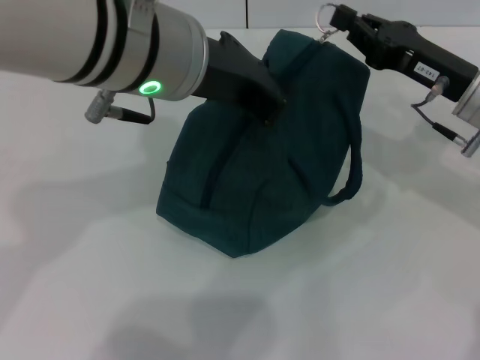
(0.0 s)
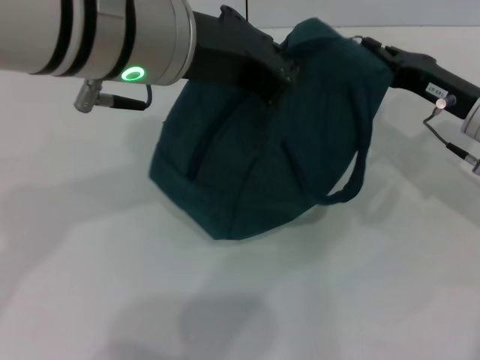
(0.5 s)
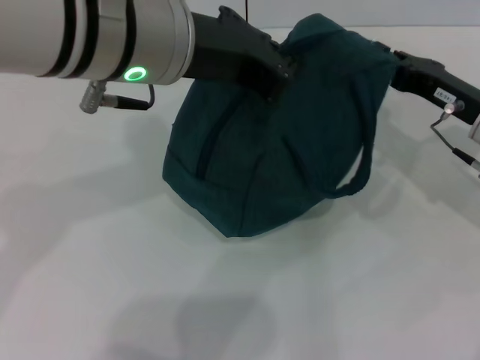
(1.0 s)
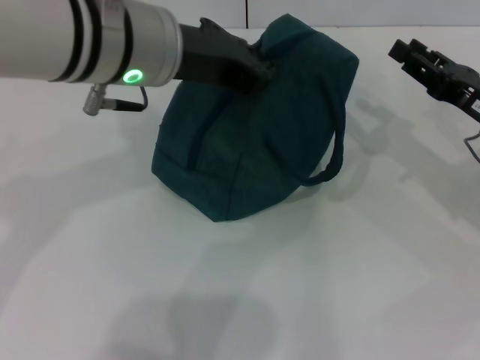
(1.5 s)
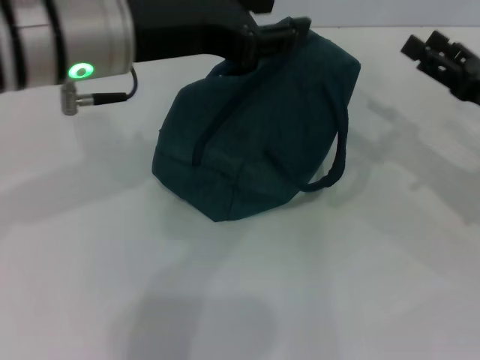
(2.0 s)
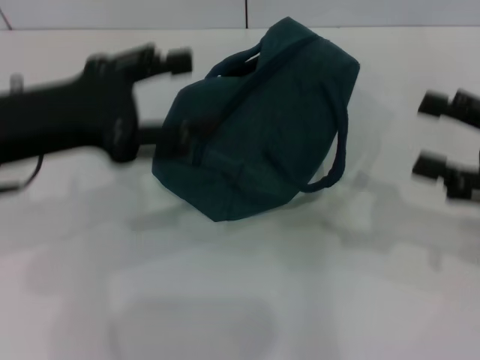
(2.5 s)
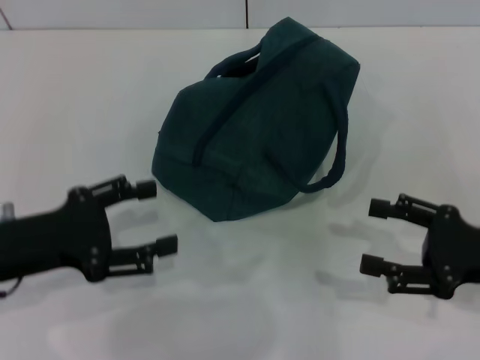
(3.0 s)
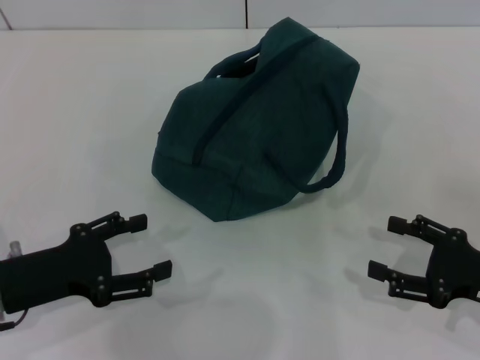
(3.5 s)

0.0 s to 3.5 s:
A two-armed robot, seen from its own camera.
0.0 to 2.0 s: The left gripper shifts about 5 cm to the left, and opens up. The right gripper travels to the right by about 5 cm, and opens its fingers.
2.0 to 3.5 s: The left gripper shifts some 25 cm downward, to the left and backward, and opens; the right gripper travels backward and downward by some 10 cm.

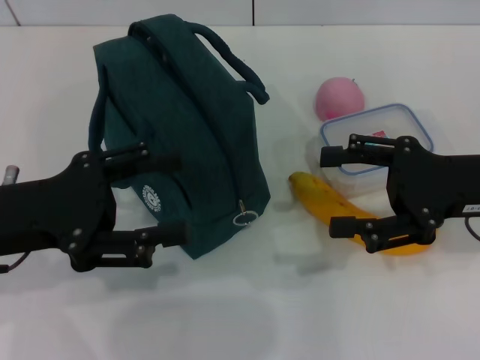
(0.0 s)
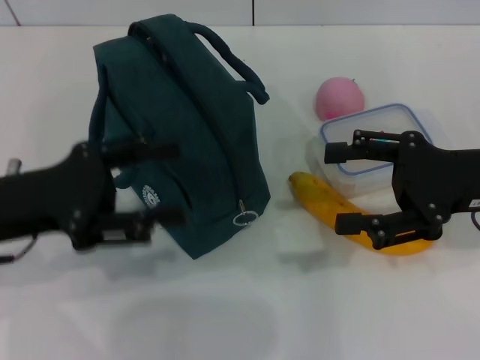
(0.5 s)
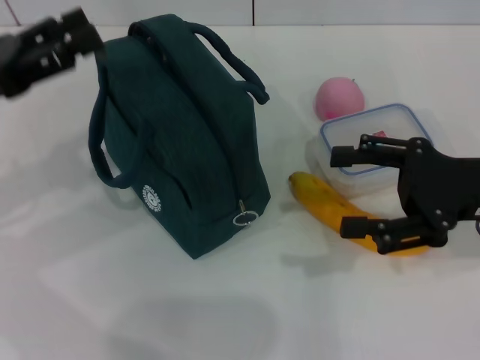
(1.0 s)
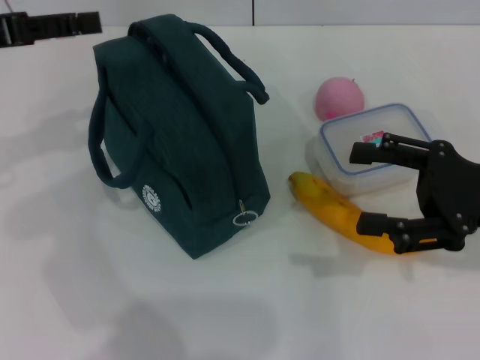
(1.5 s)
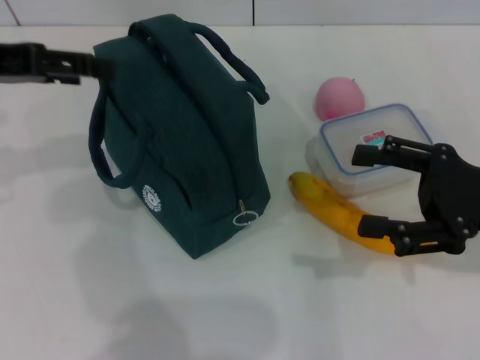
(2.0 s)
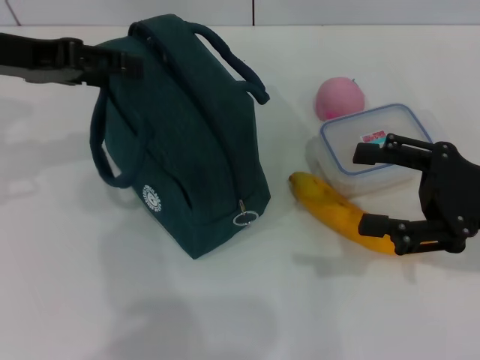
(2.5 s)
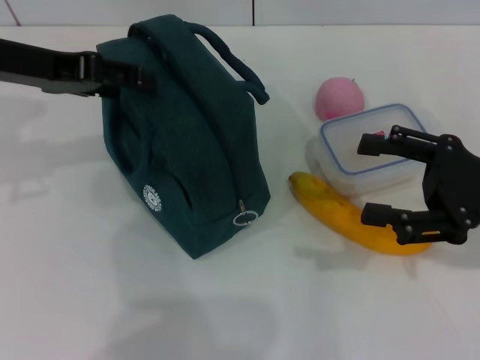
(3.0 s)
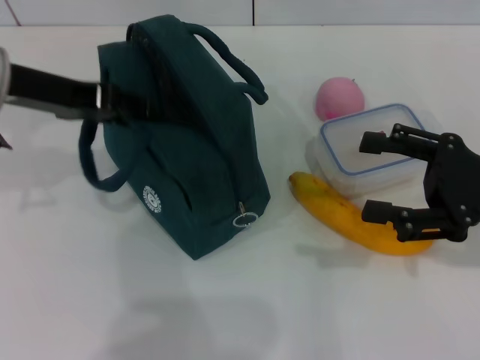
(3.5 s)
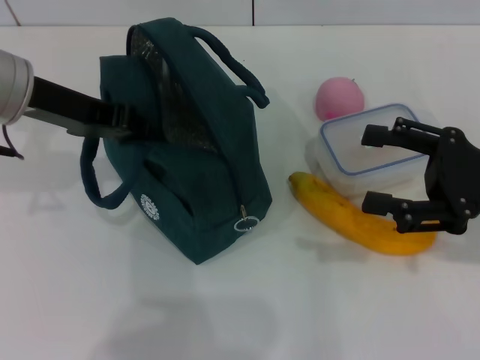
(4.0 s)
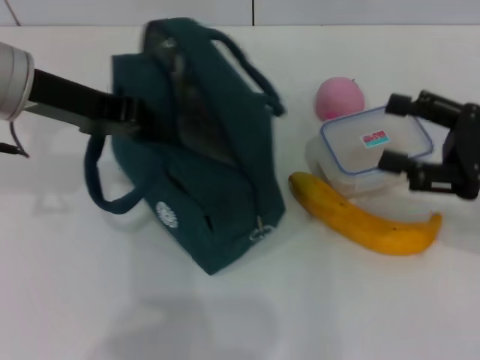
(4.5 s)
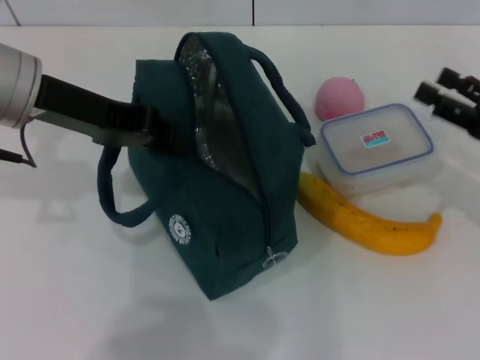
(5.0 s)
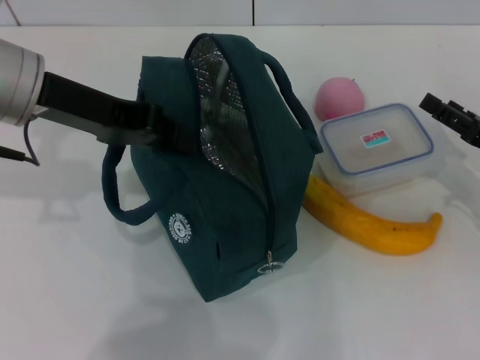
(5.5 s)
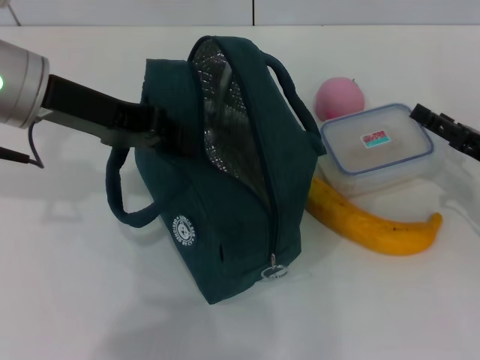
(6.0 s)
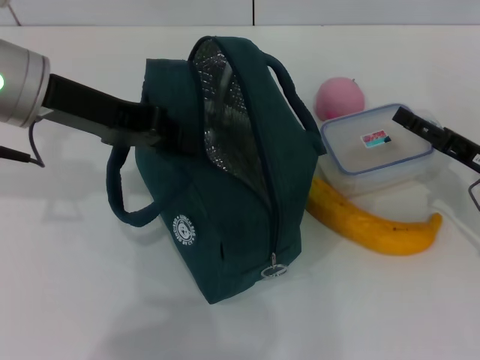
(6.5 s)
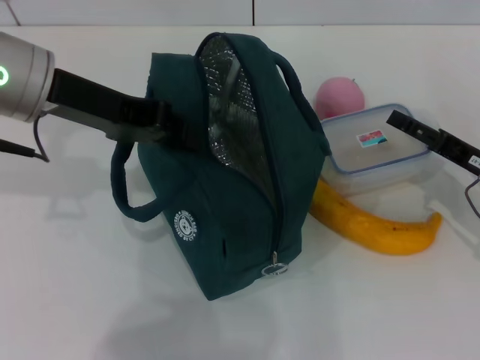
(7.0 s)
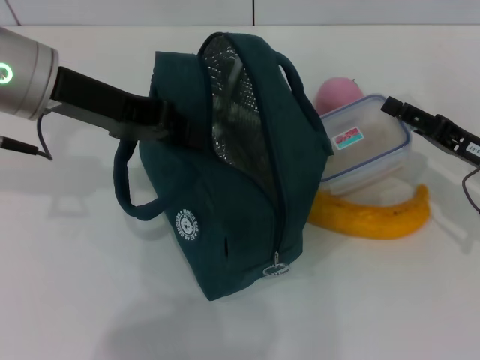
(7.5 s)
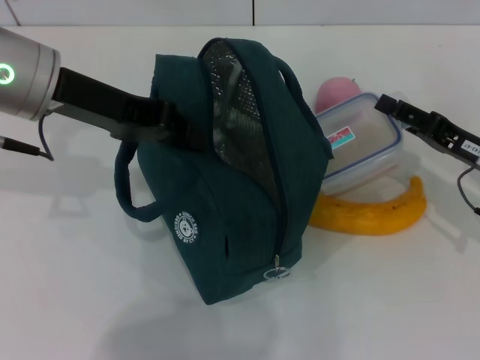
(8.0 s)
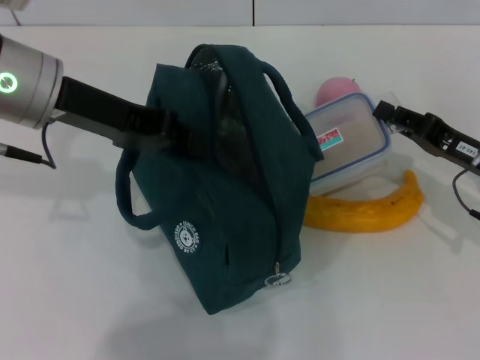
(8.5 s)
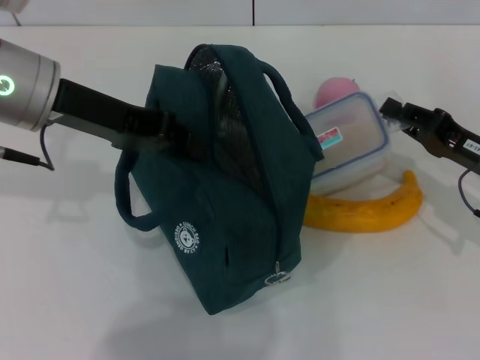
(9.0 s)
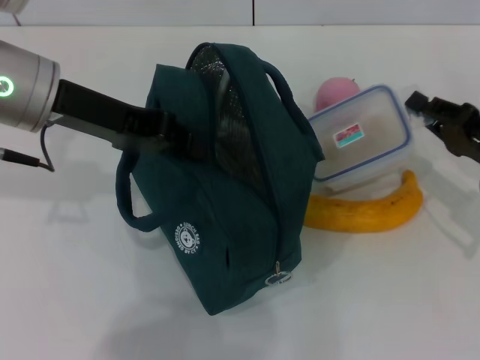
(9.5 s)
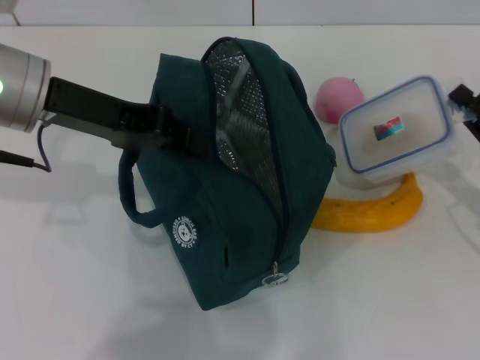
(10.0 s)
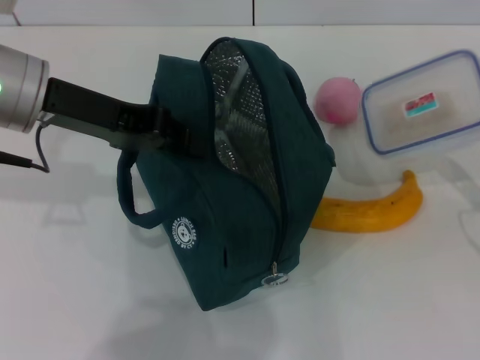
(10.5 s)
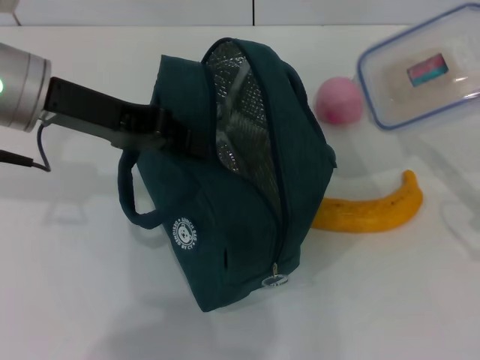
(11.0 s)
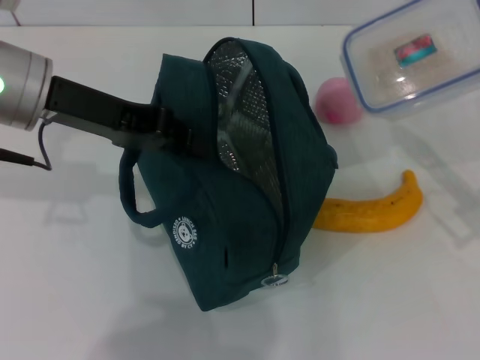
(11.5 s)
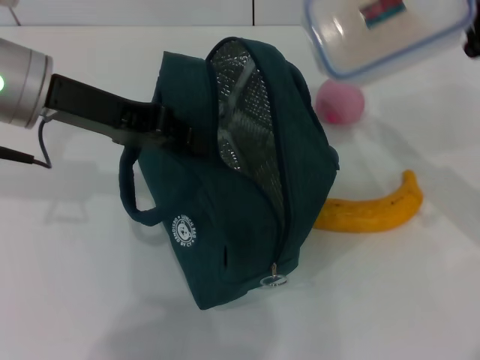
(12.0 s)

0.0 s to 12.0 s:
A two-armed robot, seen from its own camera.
Step, 0.0 to 5.0 s: Hold the lunch bag with your left hand.
Step, 5.5 to 8.5 s: Pick up the lunch box with your right hand.
0.0 to 2.0 s: The left gripper shifts approximately 15 cm forward and upward.
2.0 to 4.0 s: The left gripper moves to the right, approximately 5 cm, and closes its fingers.
4.0 to 6.0 s: The right gripper goes approximately 10 cm downward. Meanwhile the left gripper closes its fingers.
6.0 to 8.0 s: The right gripper closes up.
8.0 to 10.0 s: The right gripper ends up approximately 5 cm from where it was, and closes its fingers.
10.0 to 12.0 s: The right gripper goes some 10 cm upward and to the left.

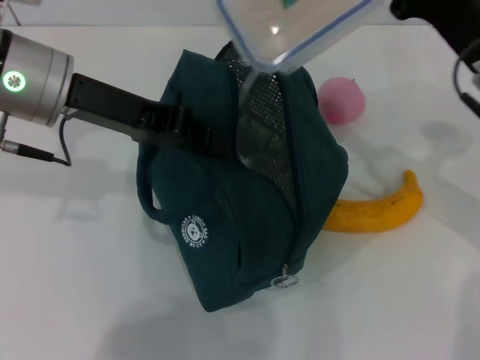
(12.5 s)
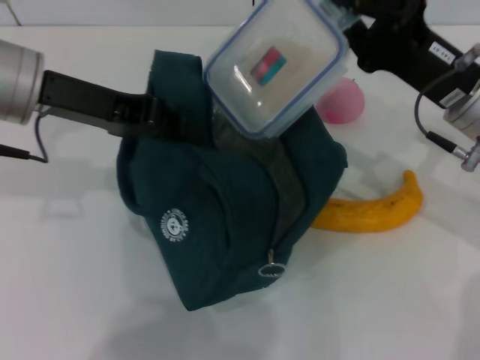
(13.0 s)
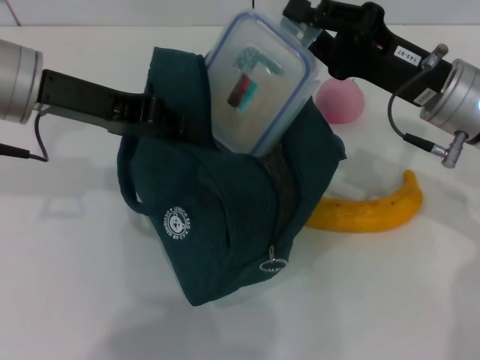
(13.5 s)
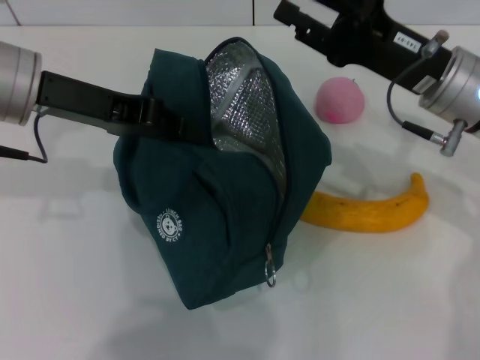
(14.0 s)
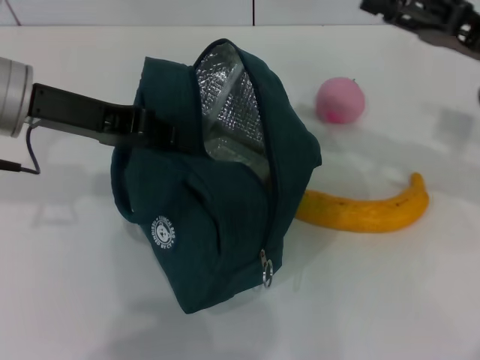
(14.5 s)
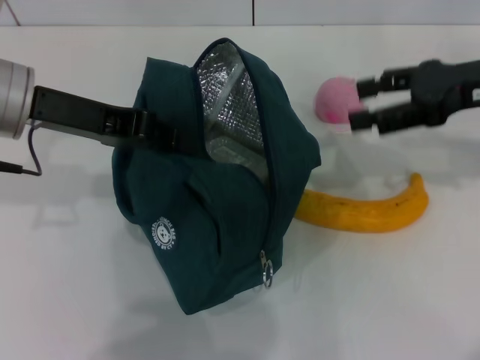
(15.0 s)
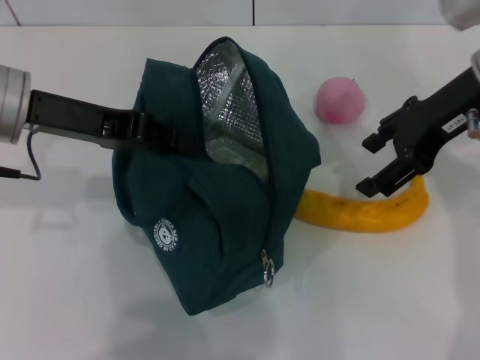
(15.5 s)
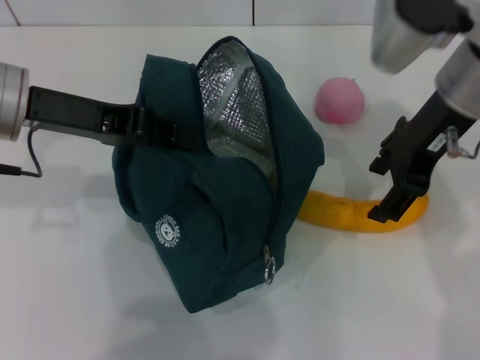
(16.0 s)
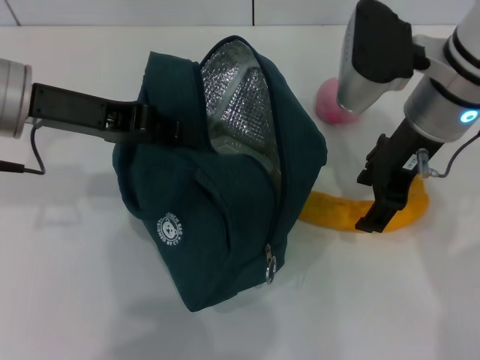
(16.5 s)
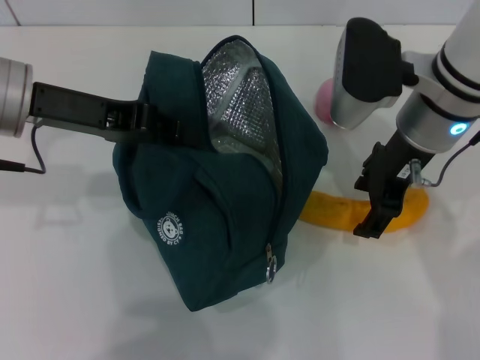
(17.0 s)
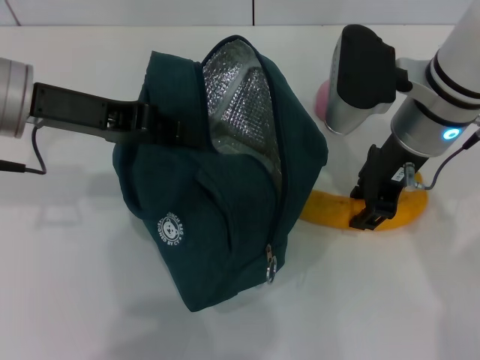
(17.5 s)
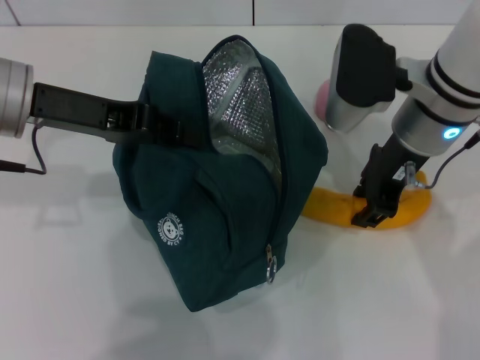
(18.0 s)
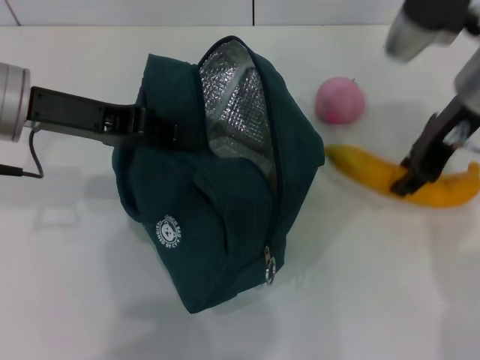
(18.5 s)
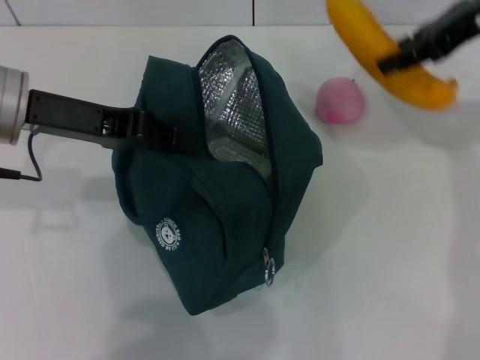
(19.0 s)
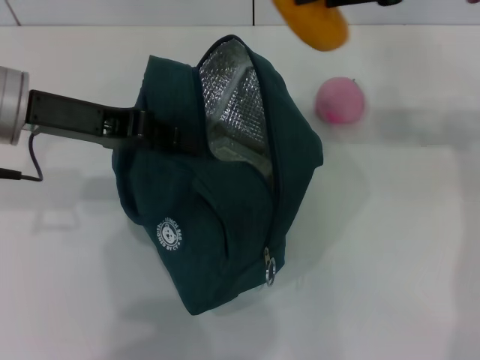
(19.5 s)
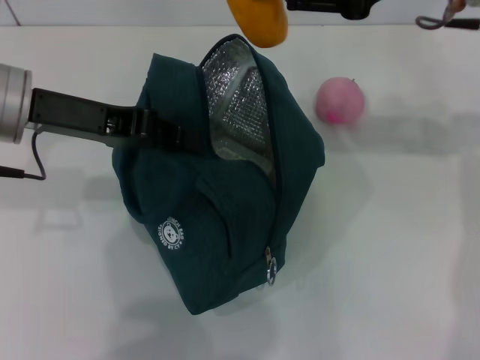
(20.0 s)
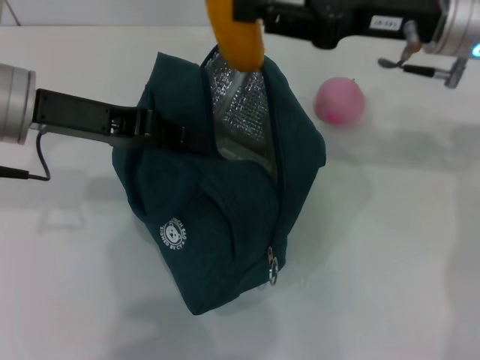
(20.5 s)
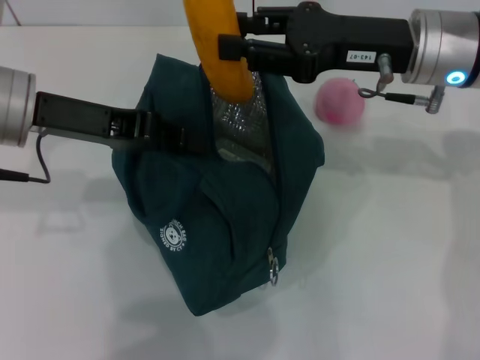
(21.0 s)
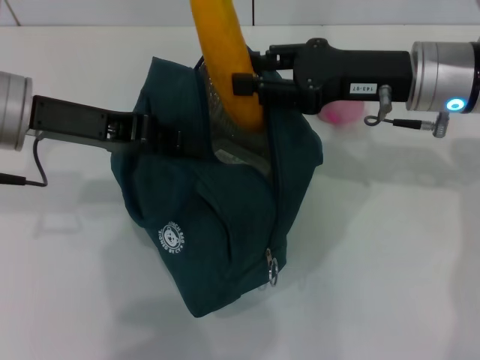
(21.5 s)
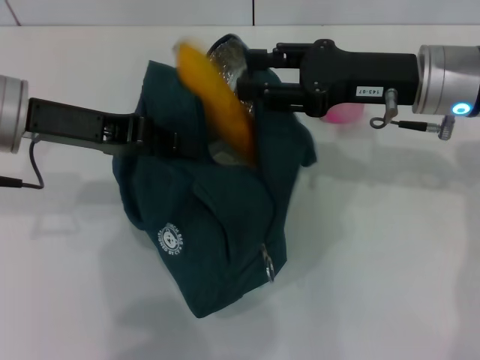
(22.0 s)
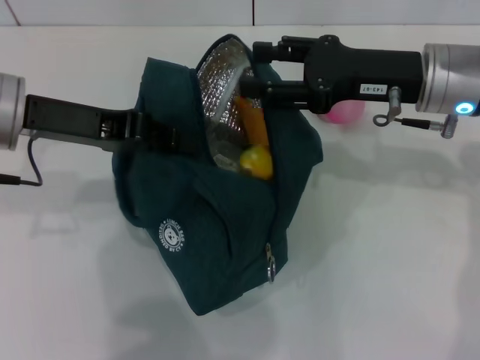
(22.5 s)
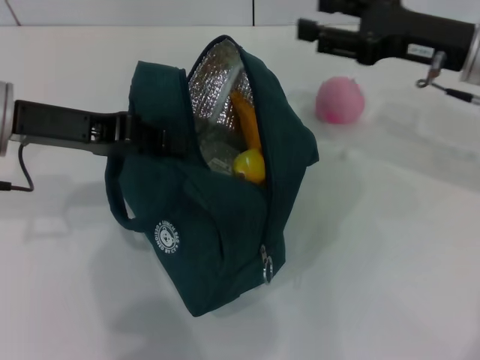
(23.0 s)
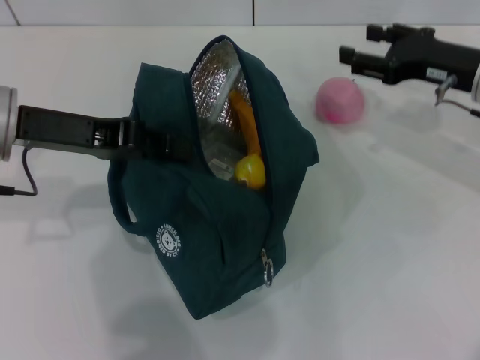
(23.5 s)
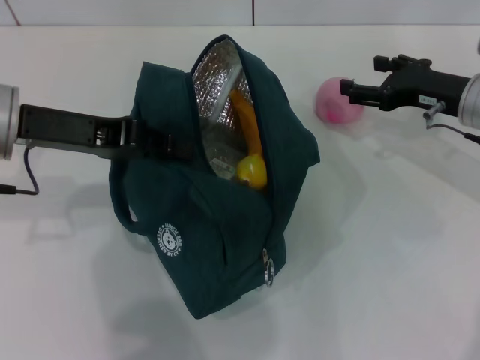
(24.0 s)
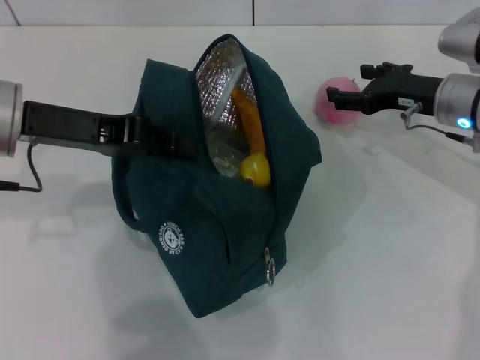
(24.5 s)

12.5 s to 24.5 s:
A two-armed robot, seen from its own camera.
Step, 14.5 to 18.0 s: Take the banana with your right hand.
Step, 18.5 to 22.0 s: Put the banana into the lunch bag with your right hand.
12.5 to 14.5 s: The right gripper ends up some 5 cm from where it was, and opens.
14.5 to 16.5 s: The right gripper is displaced to the left by about 10 cm.
16.5 to 18.5 s: The right gripper closes.
18.5 to 20.5 s: The right gripper travels upward and back again, approximately 10 cm each way.
20.5 to 22.5 s: The right gripper moves downward, some 5 cm.
22.5 to 24.5 s: The right gripper is displaced downward by some 5 cm.
